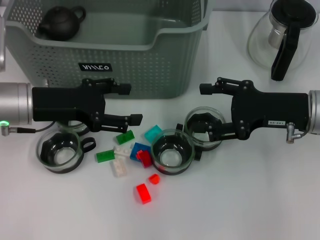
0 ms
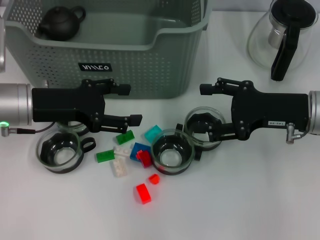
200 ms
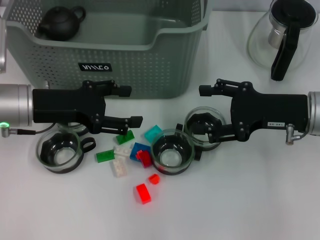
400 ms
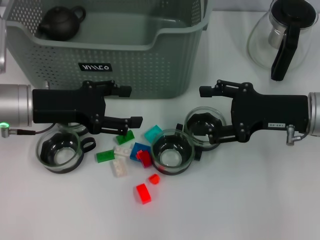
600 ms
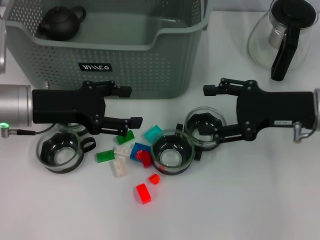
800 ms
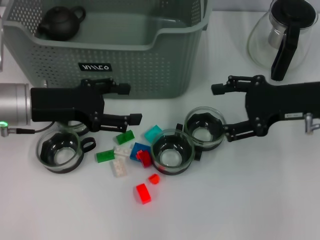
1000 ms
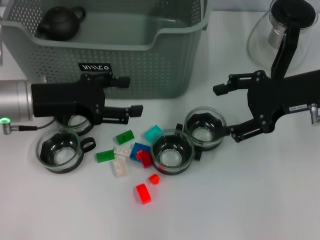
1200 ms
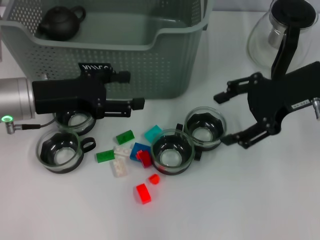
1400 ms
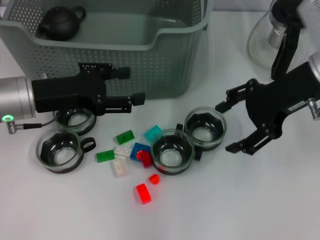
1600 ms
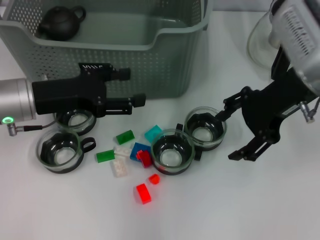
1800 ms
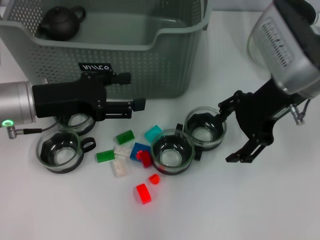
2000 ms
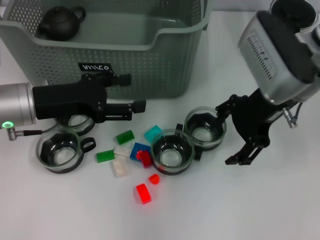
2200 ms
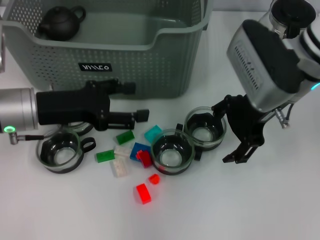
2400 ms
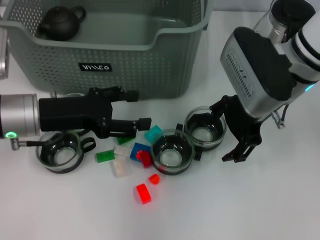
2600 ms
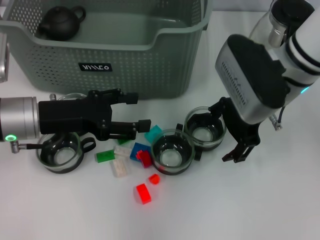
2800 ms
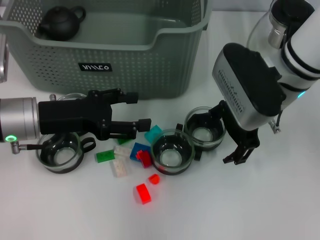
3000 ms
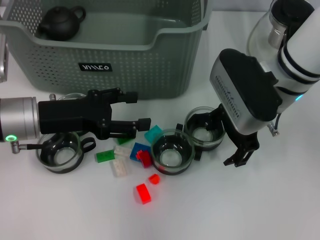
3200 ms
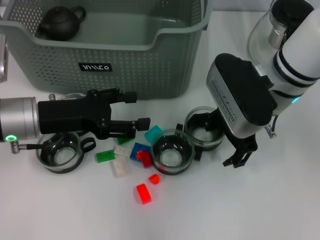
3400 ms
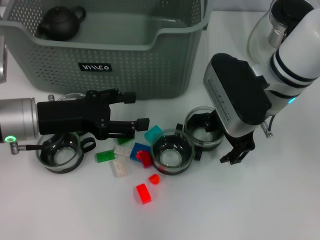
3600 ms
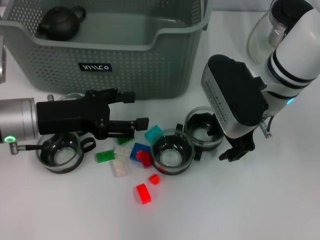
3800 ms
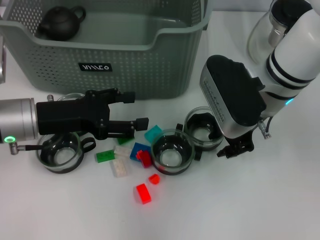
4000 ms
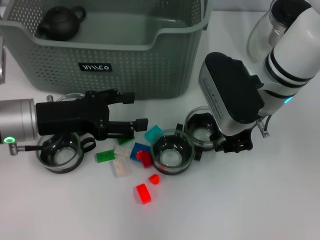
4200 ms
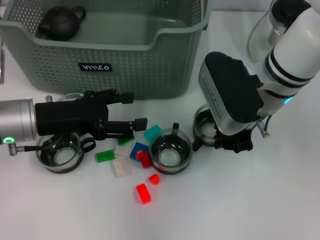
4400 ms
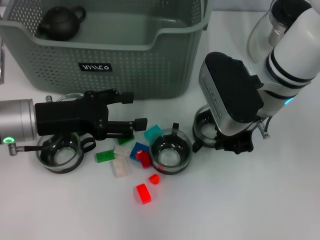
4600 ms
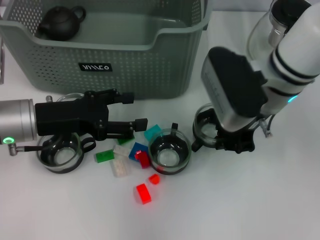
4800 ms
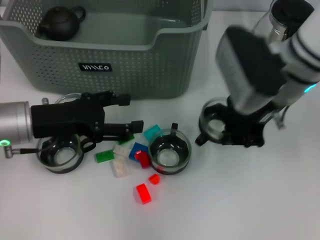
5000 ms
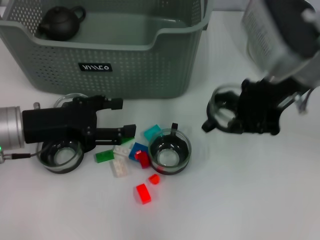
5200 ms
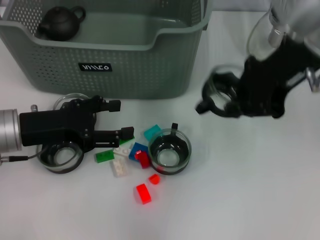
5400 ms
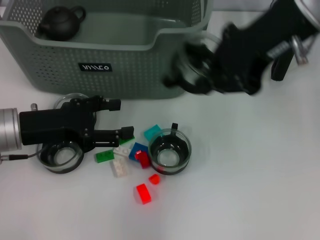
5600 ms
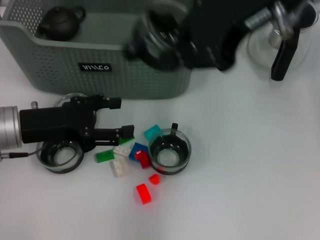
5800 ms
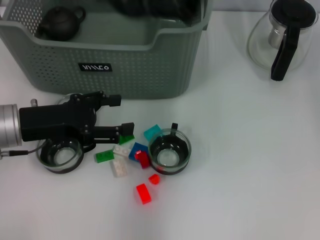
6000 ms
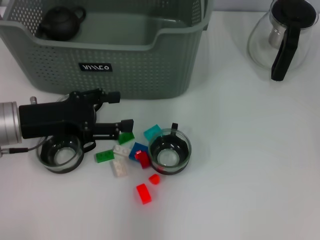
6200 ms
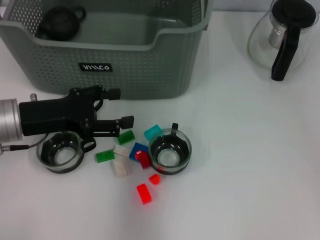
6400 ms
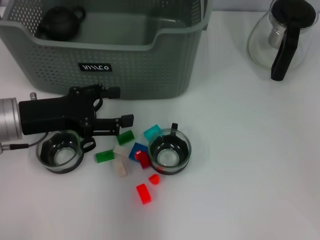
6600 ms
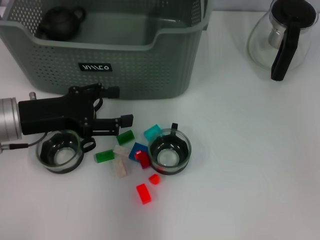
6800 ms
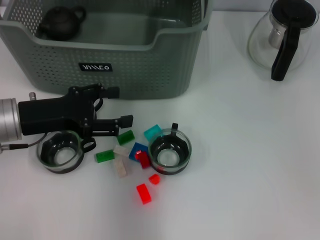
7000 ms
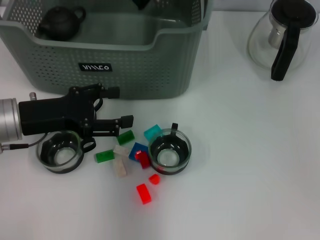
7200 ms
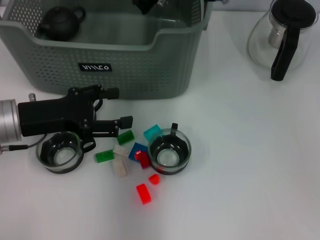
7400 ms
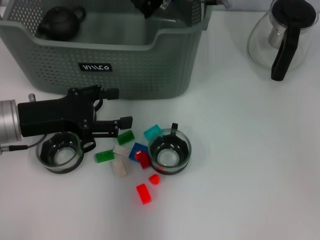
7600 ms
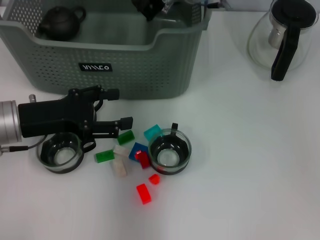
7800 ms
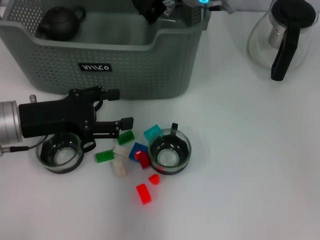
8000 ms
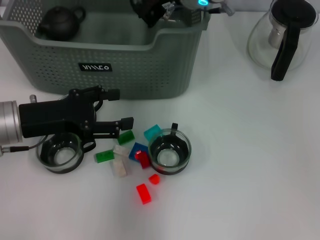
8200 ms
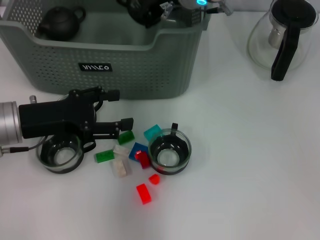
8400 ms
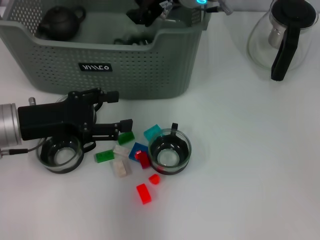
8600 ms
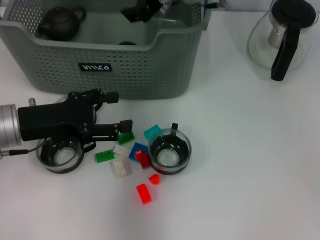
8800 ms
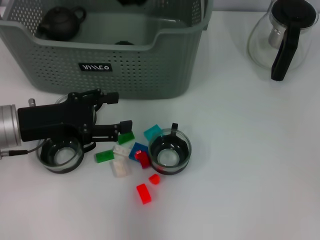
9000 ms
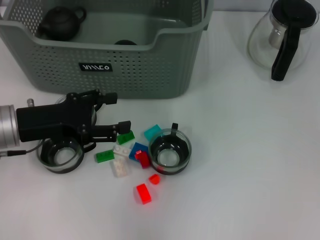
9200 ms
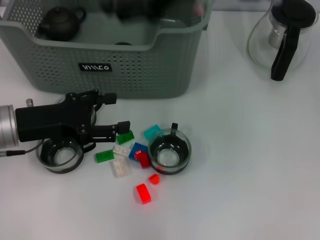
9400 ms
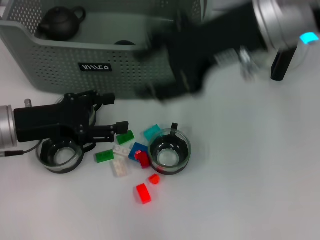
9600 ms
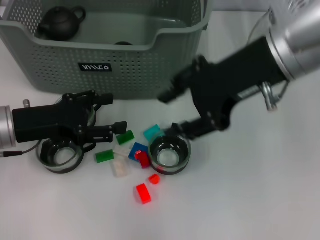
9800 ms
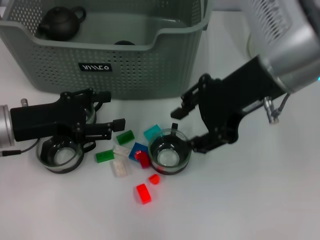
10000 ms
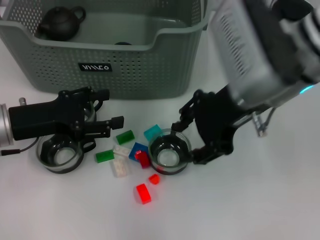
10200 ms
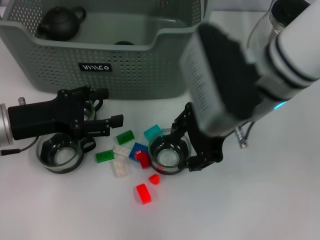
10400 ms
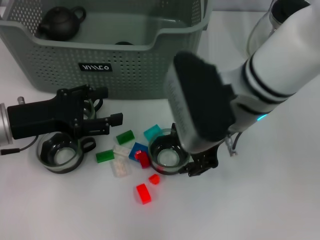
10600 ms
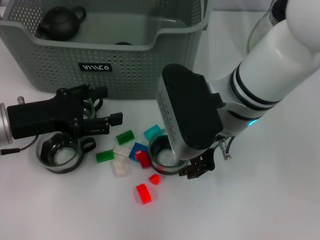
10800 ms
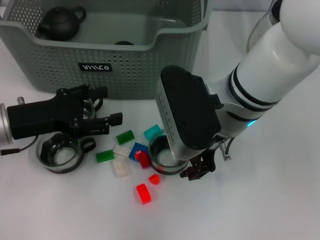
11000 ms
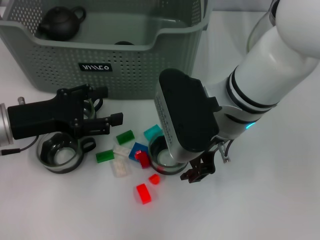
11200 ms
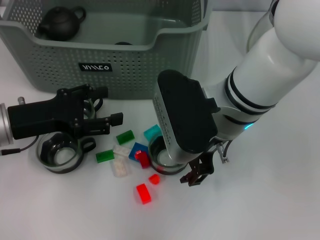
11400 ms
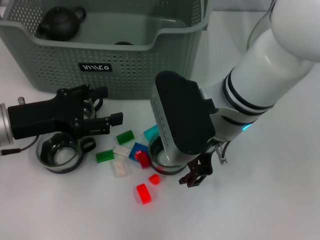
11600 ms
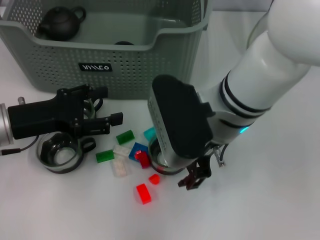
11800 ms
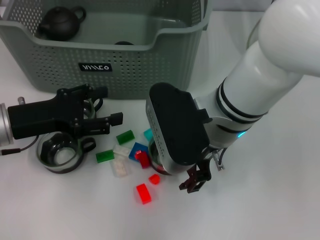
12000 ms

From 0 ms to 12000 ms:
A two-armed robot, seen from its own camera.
Task of the whole recording: pick up the teacup on the table and place it into the storage bin, pick up the block on the table and place it into the storage bin.
Step, from 0 ms to 4200 ms: Grasp the cup with right gripper.
Step, from 4400 ms to 8600 ms: Place the cup in the storage box with right gripper.
From 0 ms to 1600 ms: The right gripper goes approximately 10 cm upward.
From 1600 ms to 3000 ms: The right gripper goes approximately 5 cm to the left.
From 3000 ms to 4400 ms: The right gripper closes its fingers.
From 4400 ms to 6000 ms: The right gripper travels upward by some 20 cm.
From 6000 ms to 7600 ms: The right gripper shifts some 20 cm downward, forward and to the left.
From 7600 ms to 9000 ms: The right gripper opens its fingers.
From 9000 ms to 10400 ms: The right gripper is displaced backward by approximately 15 cm.
From 10400 ms to 12000 ms: The right gripper shifts approximately 5 cm downward.

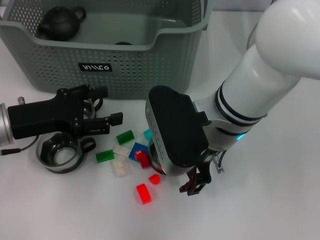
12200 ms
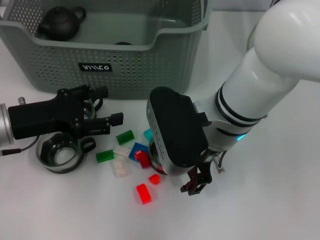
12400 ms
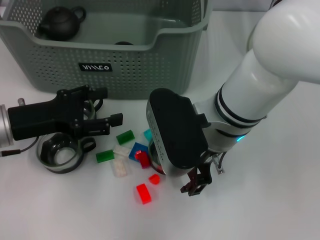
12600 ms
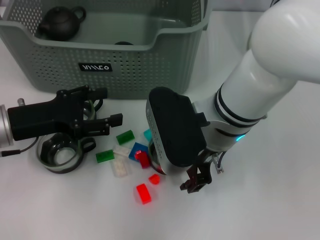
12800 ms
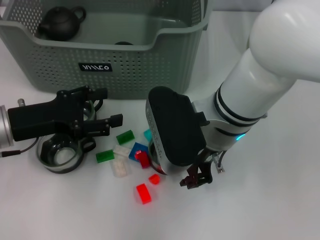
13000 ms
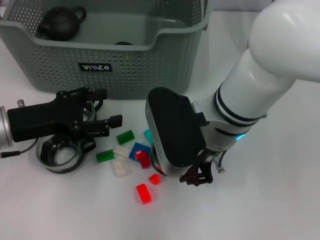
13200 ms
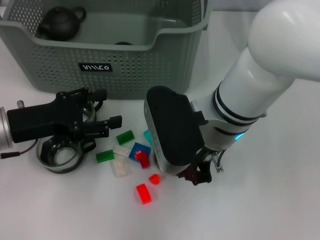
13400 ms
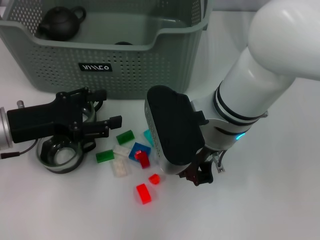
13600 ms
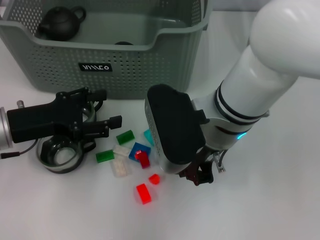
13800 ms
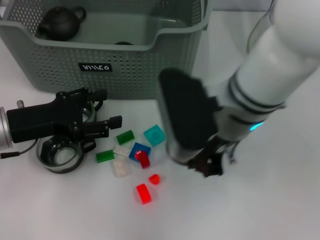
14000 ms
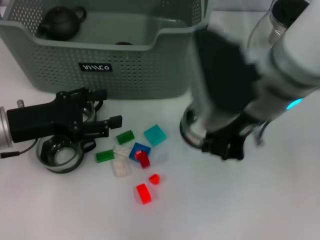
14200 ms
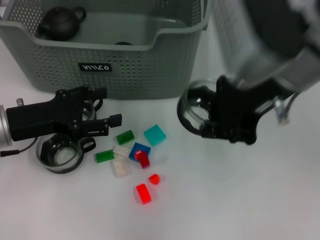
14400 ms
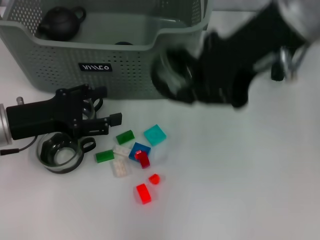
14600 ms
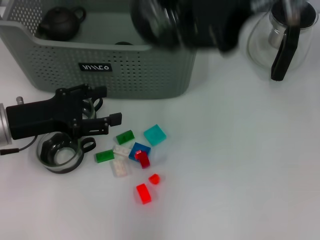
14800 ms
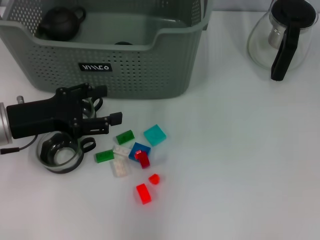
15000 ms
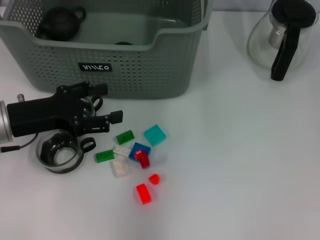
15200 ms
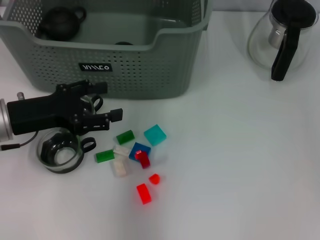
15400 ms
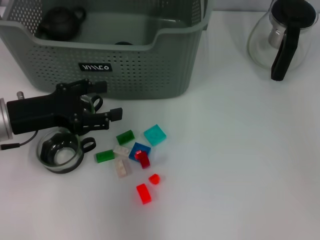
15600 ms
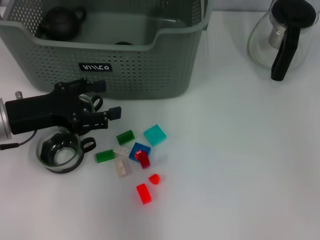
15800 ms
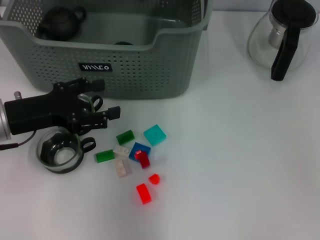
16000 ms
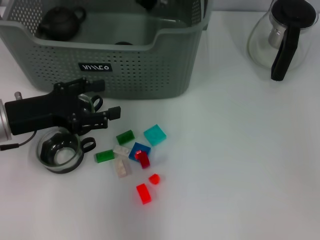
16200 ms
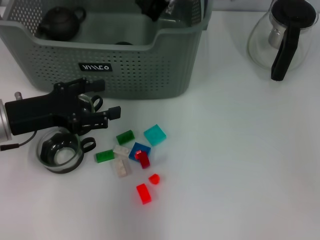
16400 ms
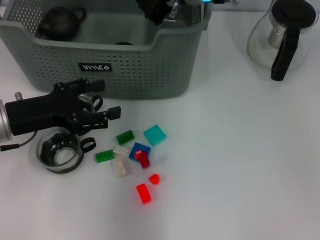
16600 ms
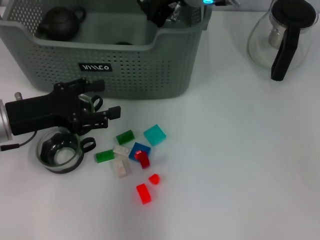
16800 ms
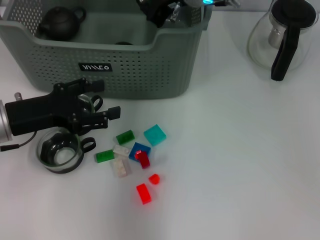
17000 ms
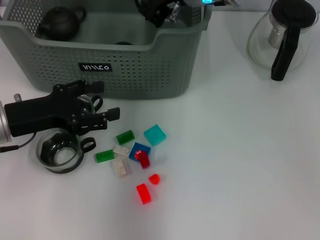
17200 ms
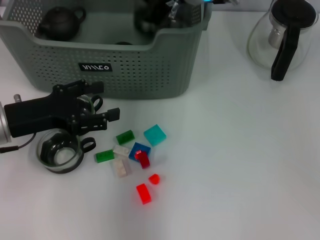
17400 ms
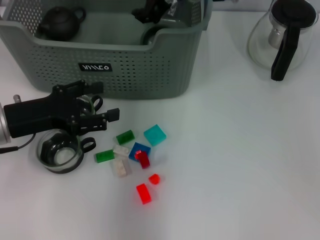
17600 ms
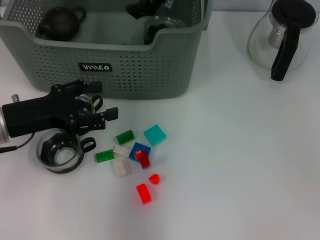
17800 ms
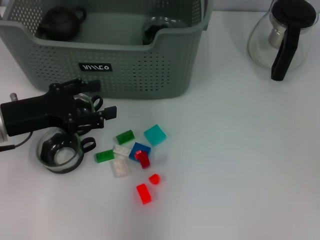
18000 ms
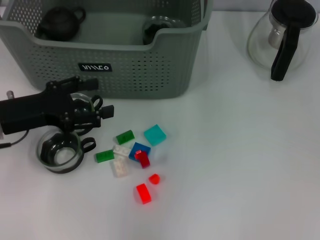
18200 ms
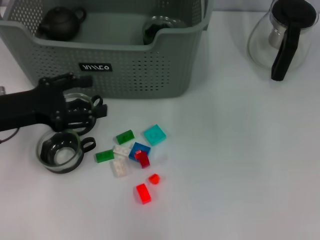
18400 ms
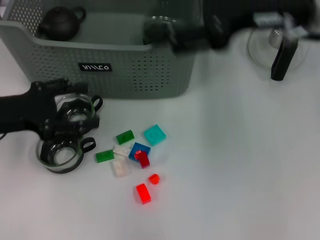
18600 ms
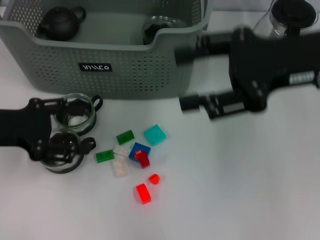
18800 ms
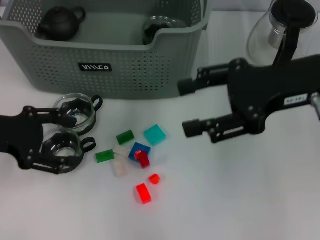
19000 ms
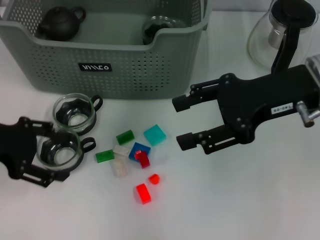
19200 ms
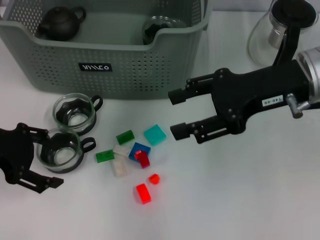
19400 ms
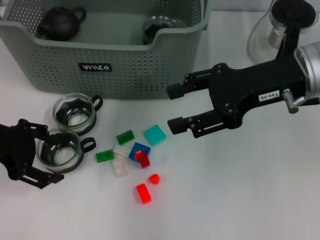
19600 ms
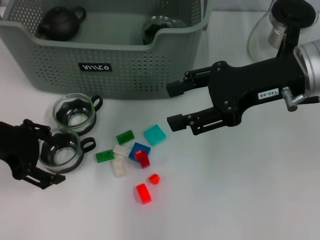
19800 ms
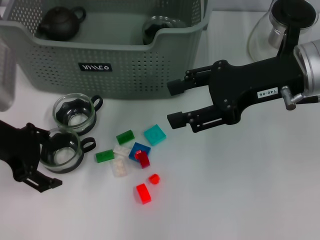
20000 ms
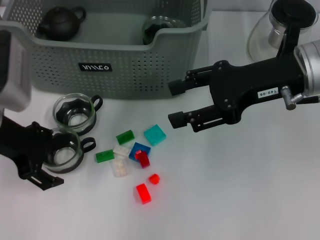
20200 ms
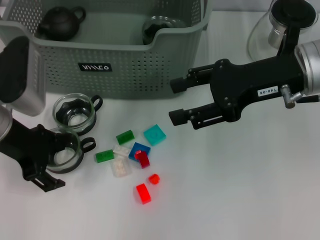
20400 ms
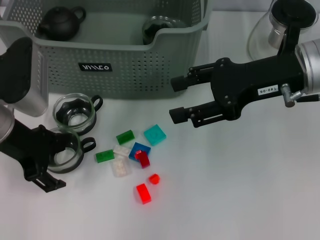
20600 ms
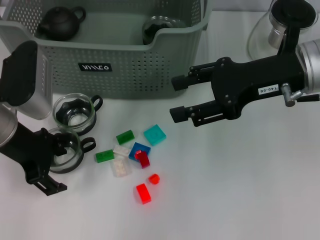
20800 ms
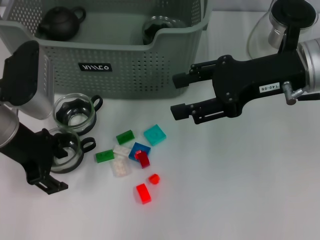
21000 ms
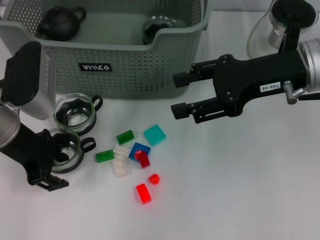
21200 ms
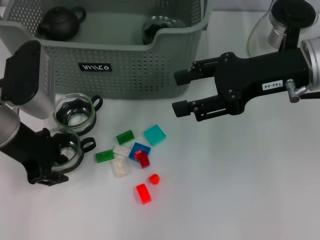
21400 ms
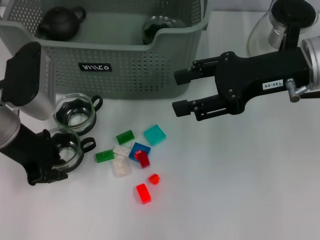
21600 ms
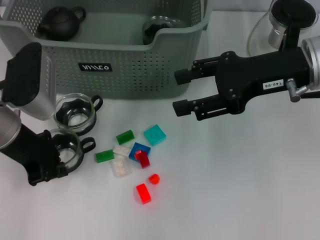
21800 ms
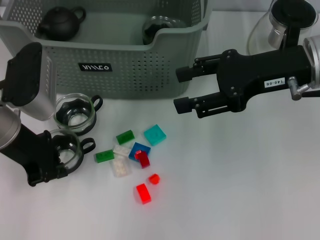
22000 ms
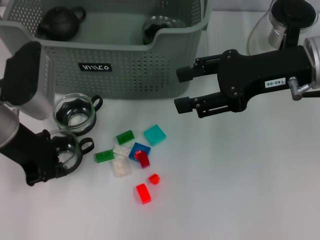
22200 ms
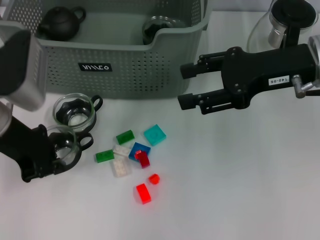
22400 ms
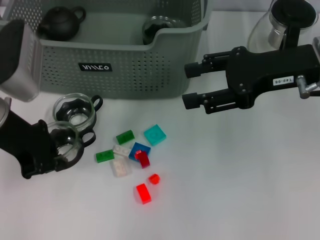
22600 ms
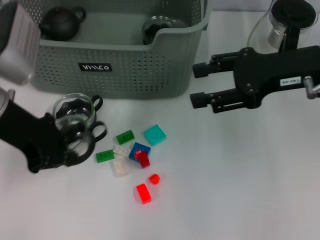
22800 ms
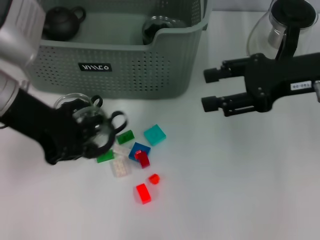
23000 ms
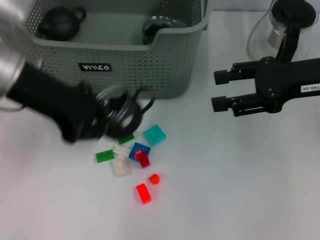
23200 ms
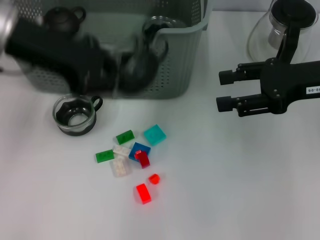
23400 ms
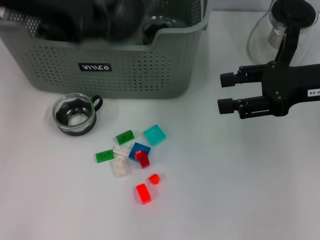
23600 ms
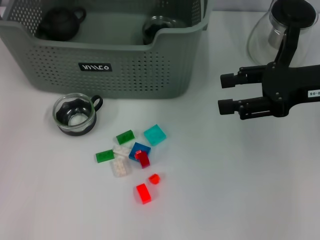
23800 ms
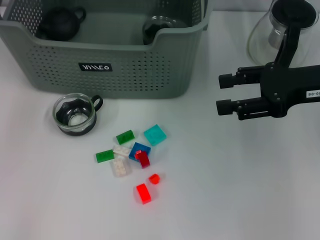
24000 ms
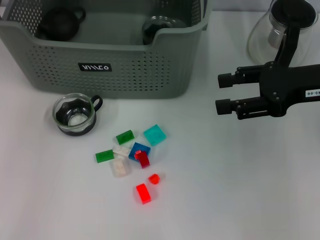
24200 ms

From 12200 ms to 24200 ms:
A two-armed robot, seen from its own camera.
Task of the whole recording: pick up the teacup on the table and place it into the storage bin, pick up the block on the table and place it into the storage bin.
Step, from 13800 ms to 17600 ms: Place the cup in the storage box with right gripper.
Step, from 17800 ms to 21800 ms: Grasp the cup with left gripper.
From 12200 ms to 13800 ms: The right gripper closes its fingers.
From 13800 ms to 15200 ms: The right gripper shifts some 25 cm upward and forward.
From 15200 ms to 16600 ms: The right gripper moves downward, about 15 cm.
From 16600 ms to 18200 ms: The right gripper travels upward by approximately 10 cm, and opens its fingers.
From 18200 ms to 19800 ms: The right gripper goes some 15 cm to the right, downward and backward, while the left gripper shifts approximately 5 cm upward.
From 19800 ms to 21200 ms: The left gripper shifts by some 5 cm.
From 21200 ms to 22600 ms: The left gripper closes.
From 22600 ms to 24200 ms: The left gripper shifts roughly 20 cm forward and upward.
